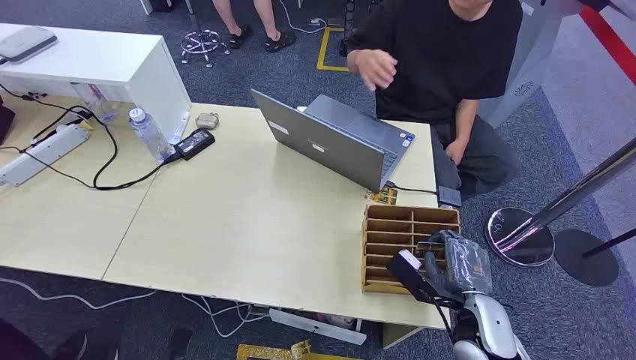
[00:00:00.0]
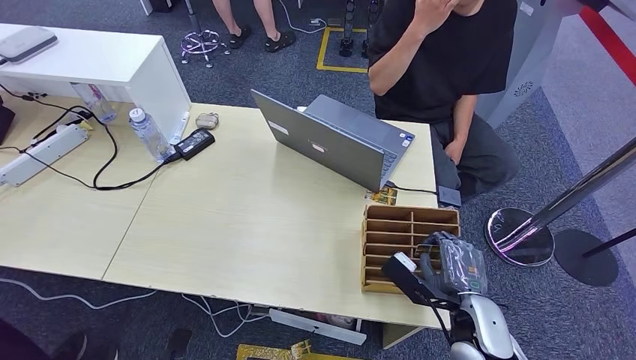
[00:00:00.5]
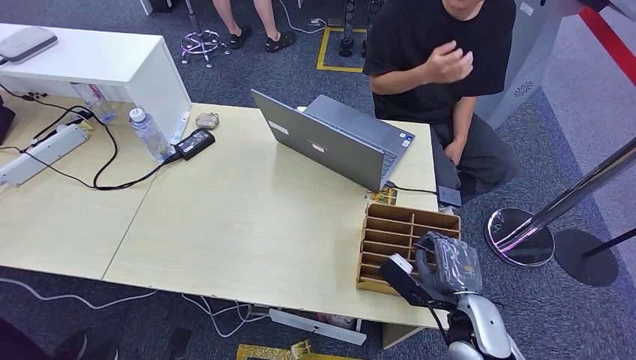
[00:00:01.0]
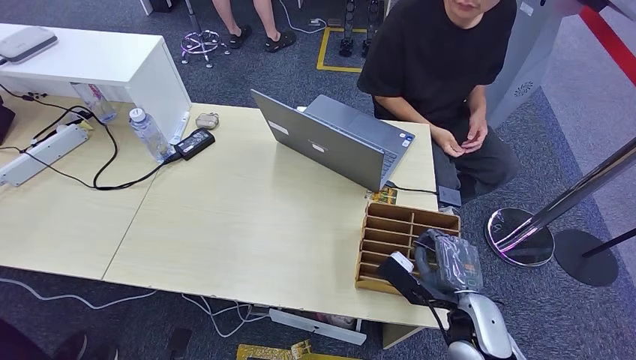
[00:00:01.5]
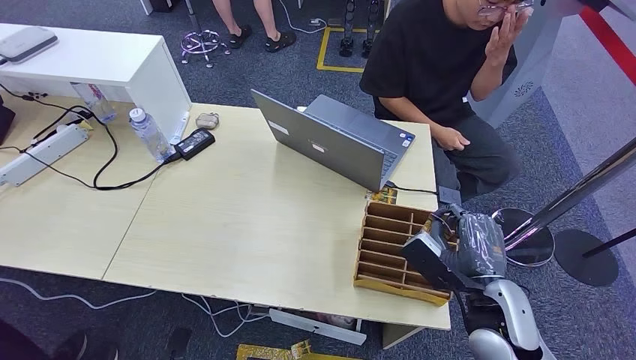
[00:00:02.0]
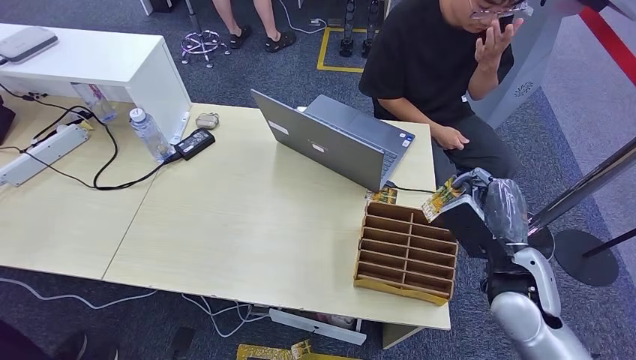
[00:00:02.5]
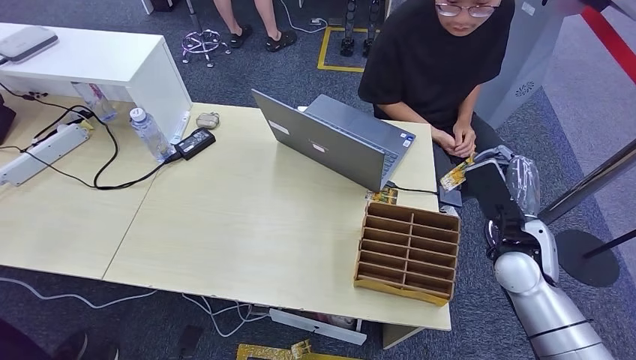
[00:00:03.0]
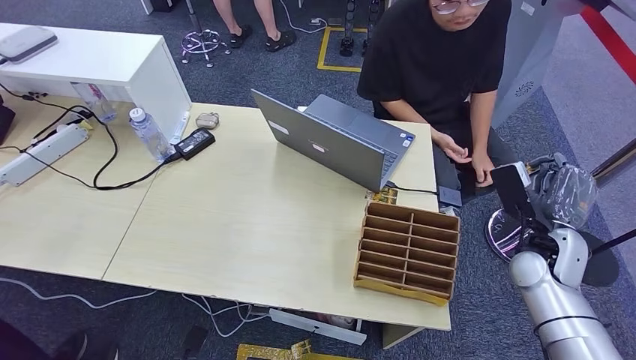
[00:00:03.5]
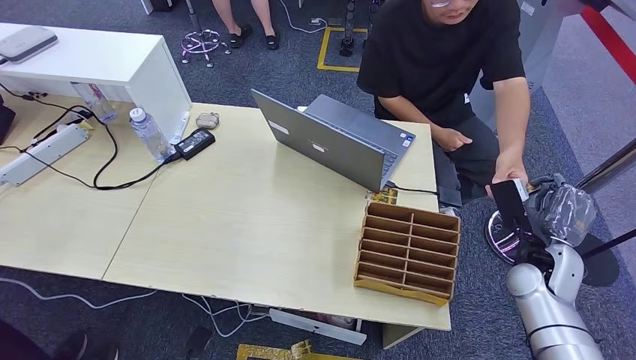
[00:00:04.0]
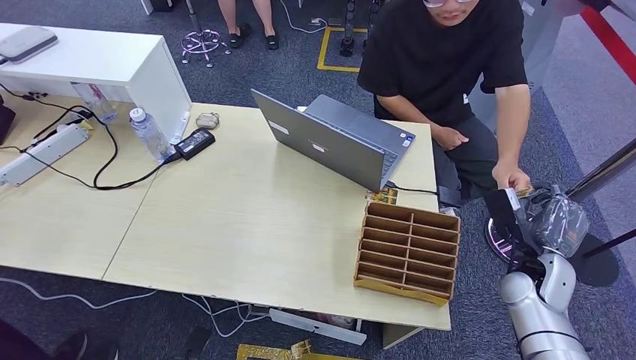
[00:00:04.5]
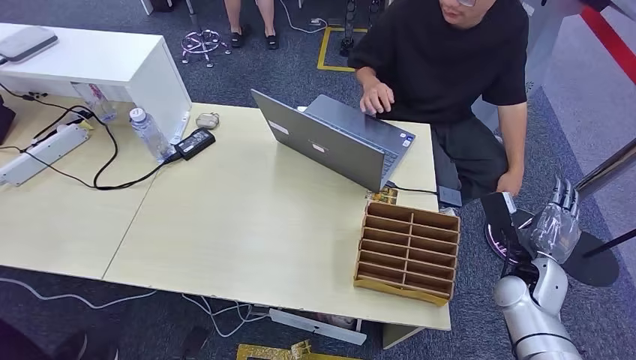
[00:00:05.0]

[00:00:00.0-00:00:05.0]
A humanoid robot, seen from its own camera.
Step, 00:00:00.0 to 00:00:02.5: Pick up the room card from the card holder.
Step, 00:00:03.0 to 00:00:04.5: Hand the room card to the target.
00:00:02.5 to 00:00:05.0: The right hand goes about 10 cm downward and to the right.
